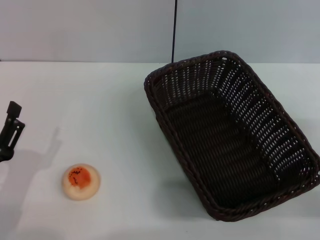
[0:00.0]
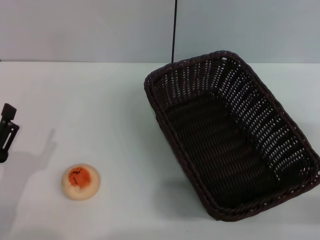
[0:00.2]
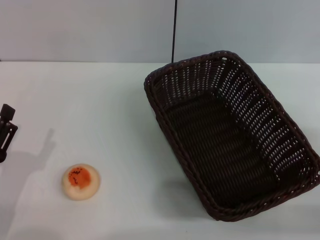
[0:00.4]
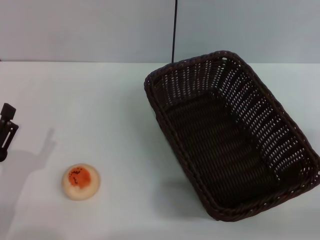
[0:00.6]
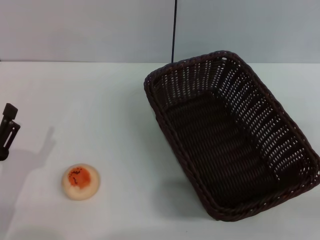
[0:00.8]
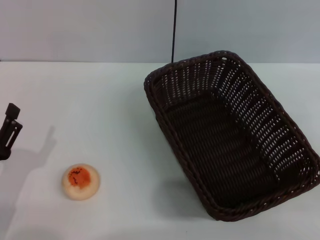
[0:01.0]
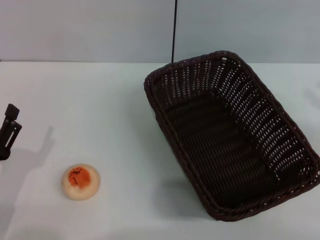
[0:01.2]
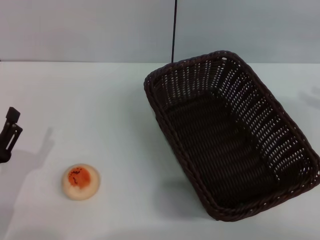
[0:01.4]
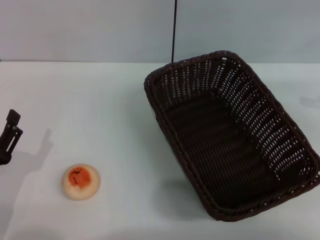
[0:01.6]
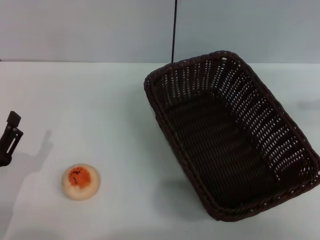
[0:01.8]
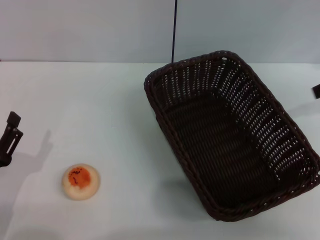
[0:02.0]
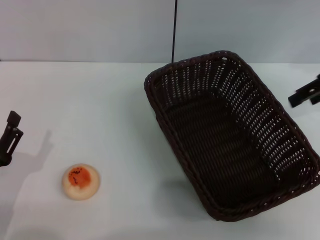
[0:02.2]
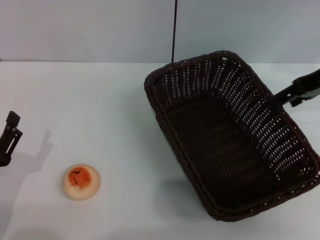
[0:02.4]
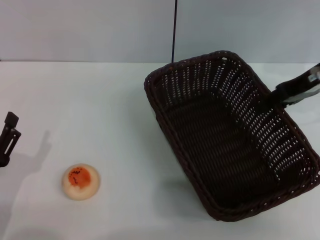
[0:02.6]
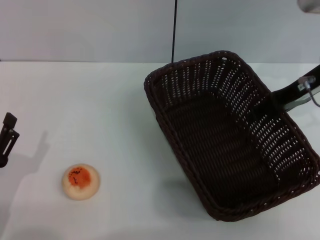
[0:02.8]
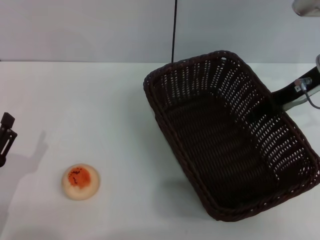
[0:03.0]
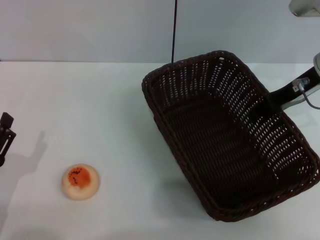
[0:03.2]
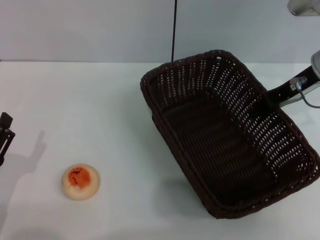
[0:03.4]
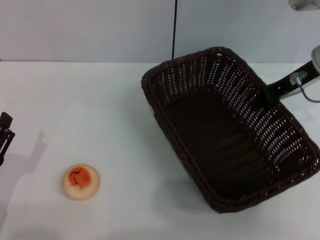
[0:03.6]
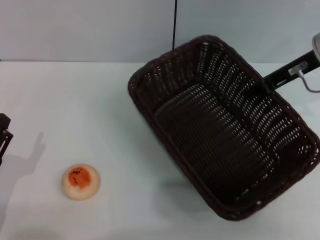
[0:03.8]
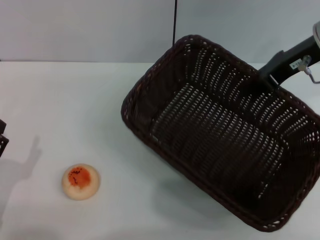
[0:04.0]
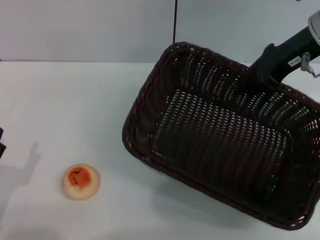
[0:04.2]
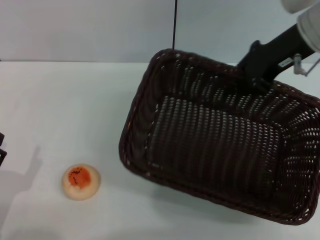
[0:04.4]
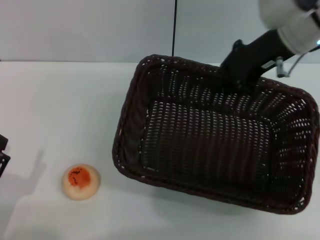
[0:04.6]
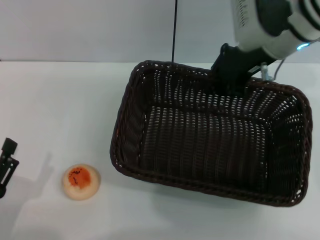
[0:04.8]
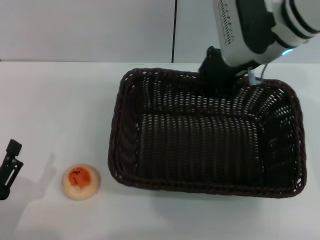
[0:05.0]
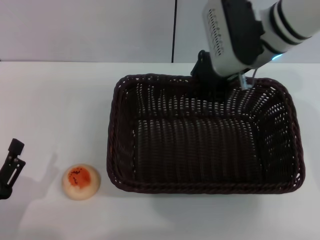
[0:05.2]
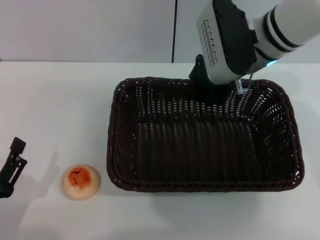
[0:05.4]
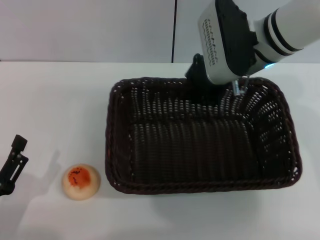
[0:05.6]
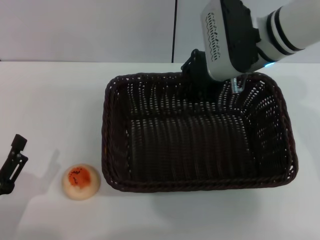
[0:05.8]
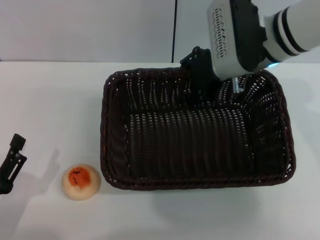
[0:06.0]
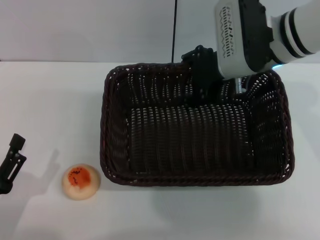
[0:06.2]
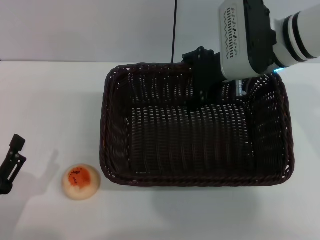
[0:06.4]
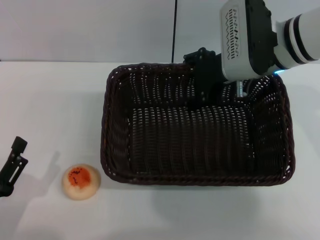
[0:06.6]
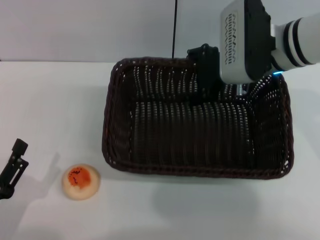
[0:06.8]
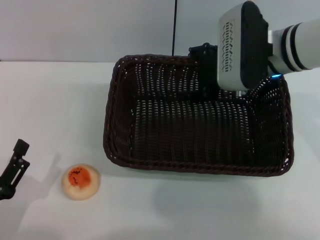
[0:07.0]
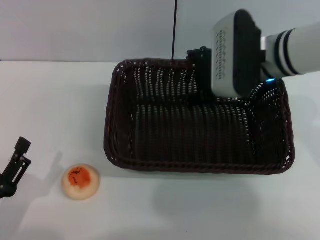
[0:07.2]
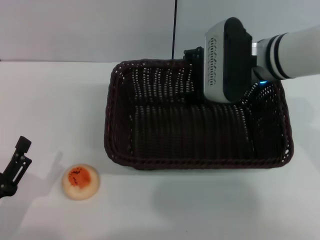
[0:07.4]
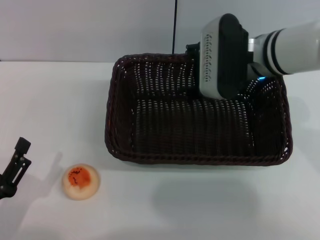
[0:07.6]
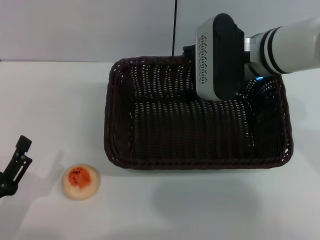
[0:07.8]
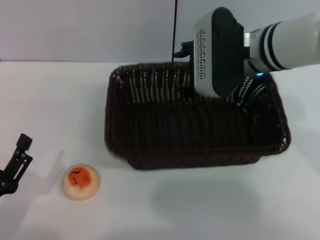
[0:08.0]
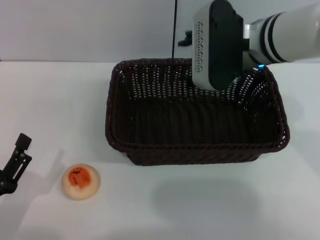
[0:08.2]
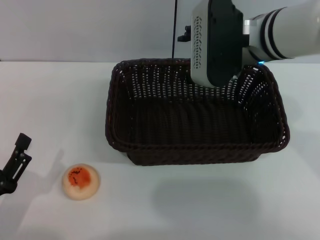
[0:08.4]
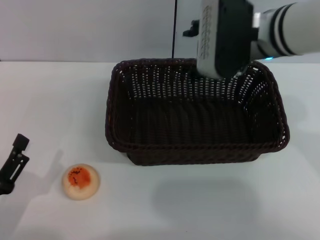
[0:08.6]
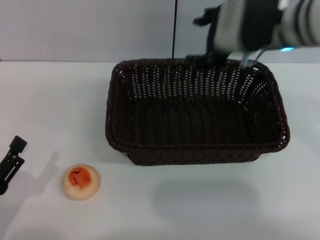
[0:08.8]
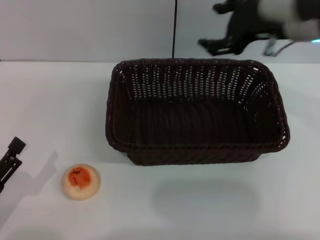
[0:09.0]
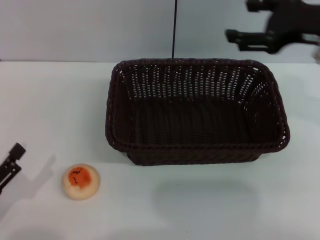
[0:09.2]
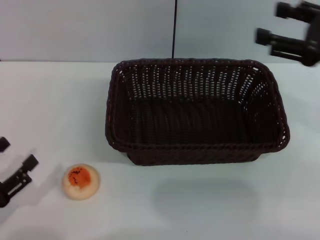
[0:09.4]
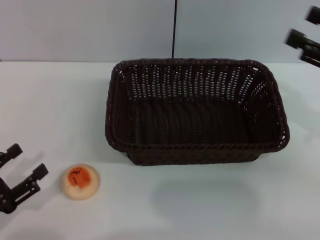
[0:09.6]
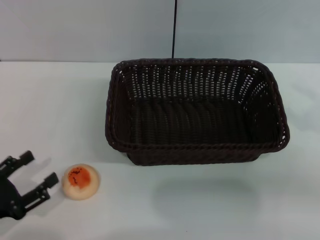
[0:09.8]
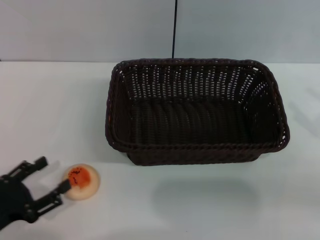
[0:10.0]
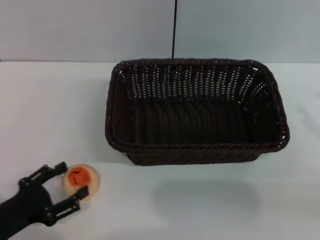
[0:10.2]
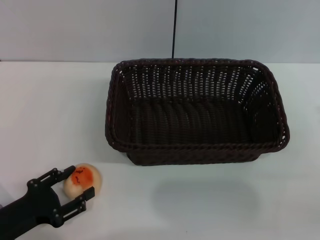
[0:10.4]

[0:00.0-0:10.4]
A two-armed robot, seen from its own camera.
Step, 0:00.0 to 0:08.4: Move the basket to the center of view with the right gripper.
0:00.0 to 0:01.4: The right gripper travels upward, forward and to the right by some 20 cm.
0:01.4 to 0:03.0: The right gripper travels to the left and forward by some 20 cm.
0:03.0 to 0:04.4: The right gripper moves upward, roughly 5 cm, and closes.
0:04.4 to 0:06.0: The right gripper moves to the left, about 5 cm.
0:06.0 to 0:07.4: The right gripper opens up.
0:07.4 to 0:09.0: The right gripper goes about 10 cm upward and to the right.
0:09.0 to 0:10.4: The right gripper is displaced to the right, backward and downward by some 30 cm.

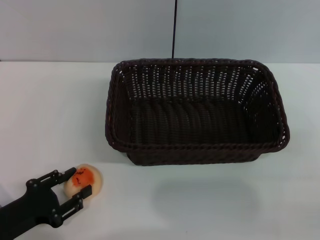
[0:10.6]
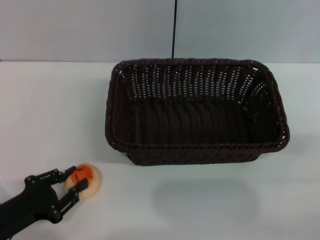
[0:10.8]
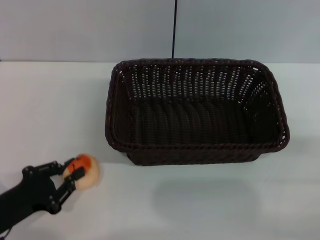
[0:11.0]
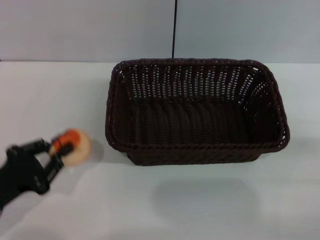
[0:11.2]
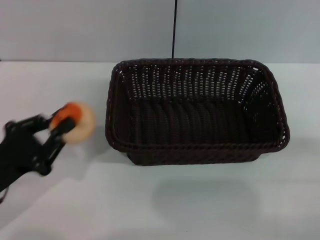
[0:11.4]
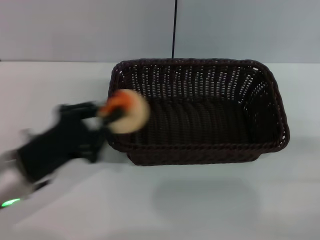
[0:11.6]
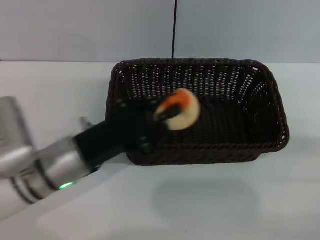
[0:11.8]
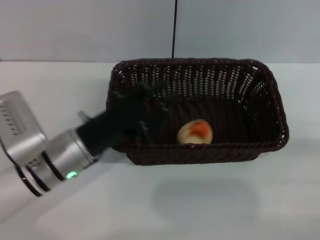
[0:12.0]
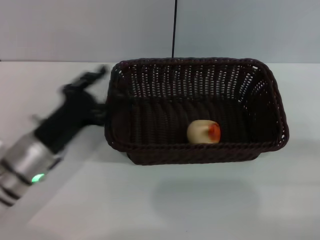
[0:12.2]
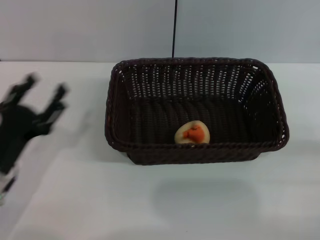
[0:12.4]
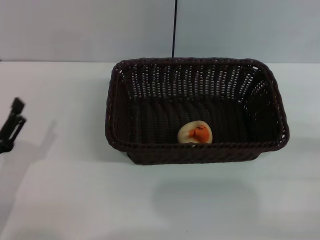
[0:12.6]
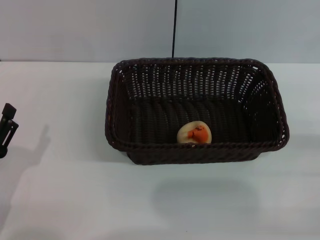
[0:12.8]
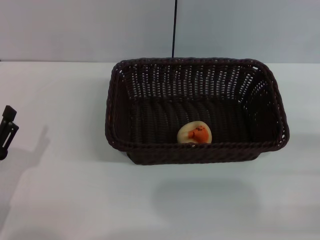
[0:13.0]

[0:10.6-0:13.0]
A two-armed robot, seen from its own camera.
Step, 0:11.4 to 0:12.0: Place the egg yolk pastry into the basket with the left gripper.
0:10.6 to 0:11.8: The left gripper heads to the right, forward and upward, covering approximately 15 cm, and closes up.
0:11.8 to 0:13.0: The left gripper heads to the left and backward, covering some 15 cm, and opens.
